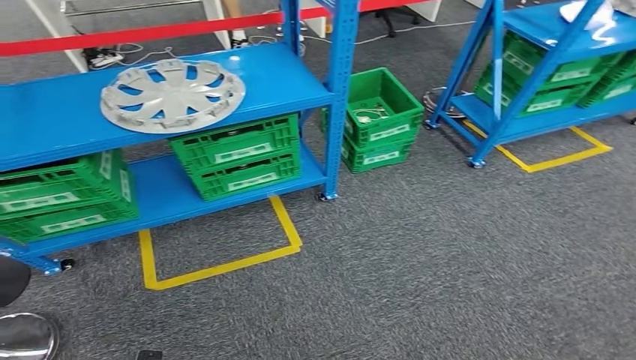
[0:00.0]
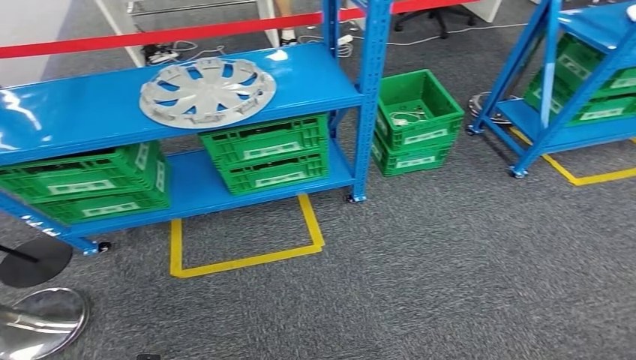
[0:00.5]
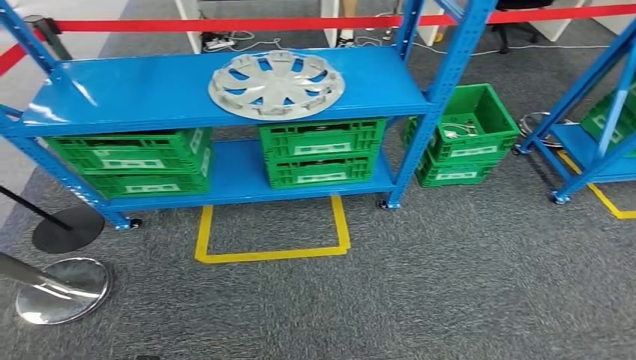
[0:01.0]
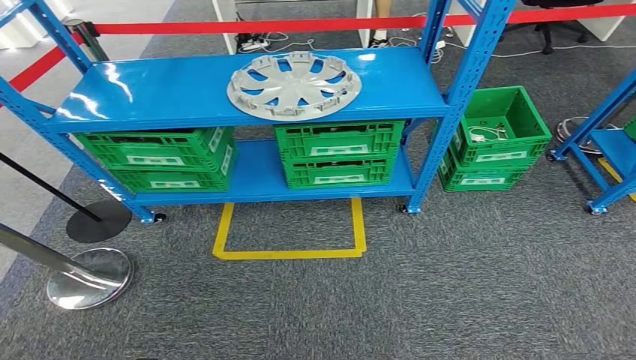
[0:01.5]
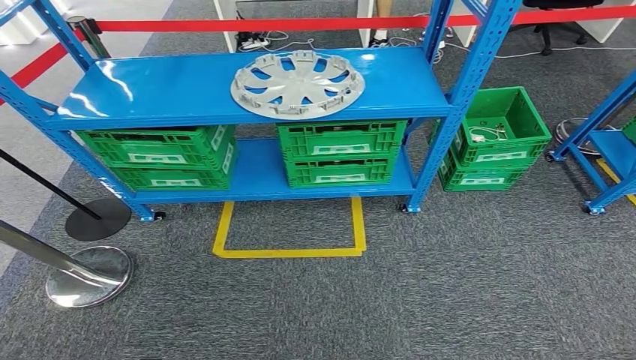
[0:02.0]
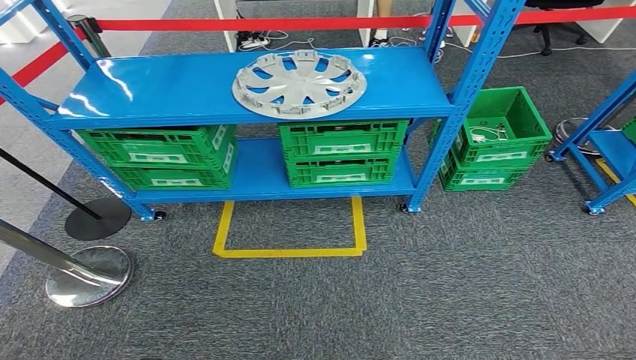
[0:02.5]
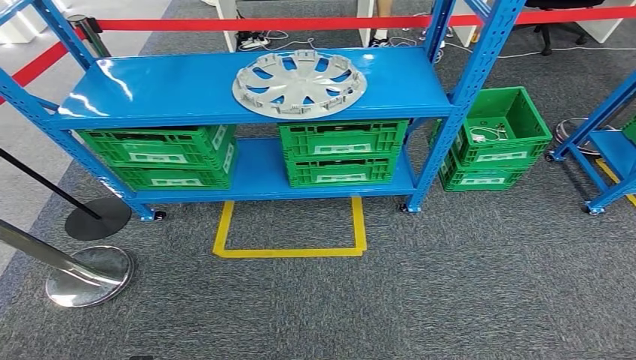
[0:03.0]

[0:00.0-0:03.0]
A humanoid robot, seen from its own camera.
Step, 0:00.0 to 0:03.0: Return to the initial position at the workbench.
0:01.5 to 0:03.0: The hands move only a little.
